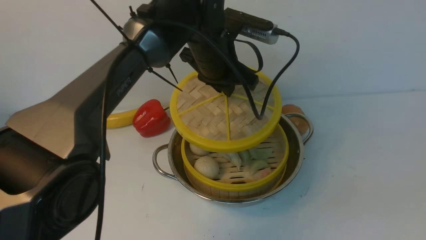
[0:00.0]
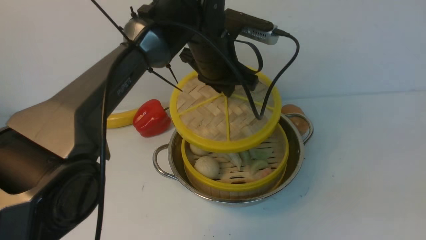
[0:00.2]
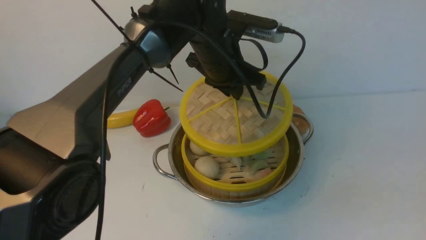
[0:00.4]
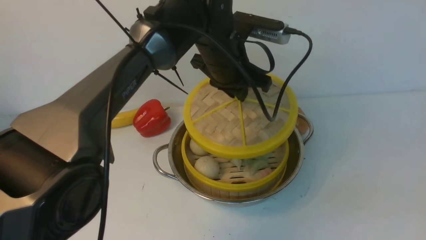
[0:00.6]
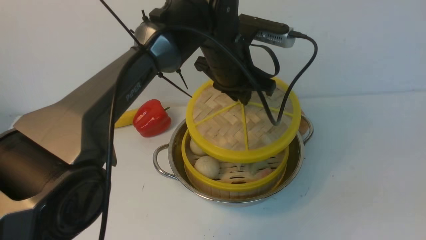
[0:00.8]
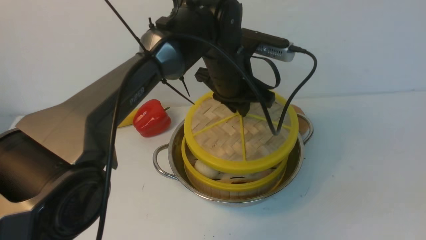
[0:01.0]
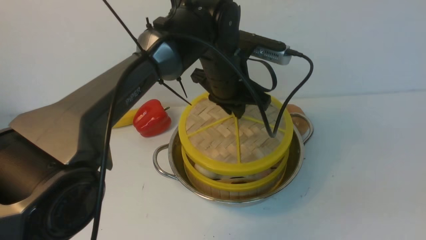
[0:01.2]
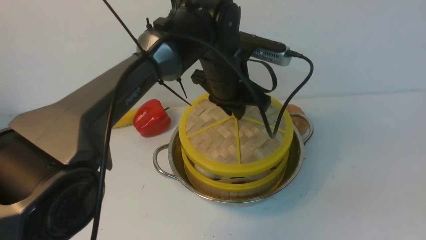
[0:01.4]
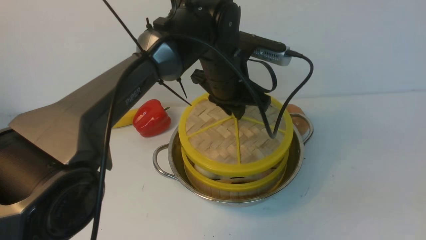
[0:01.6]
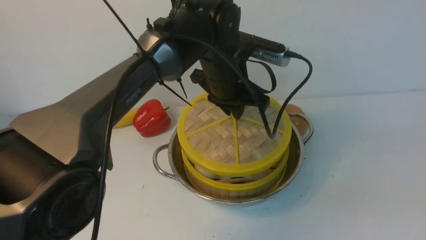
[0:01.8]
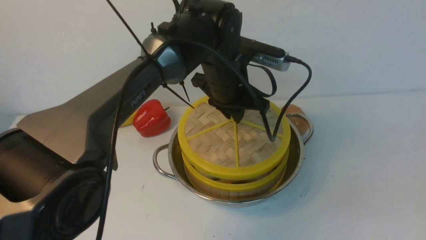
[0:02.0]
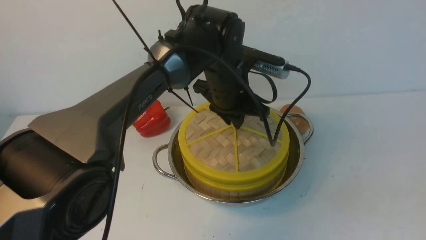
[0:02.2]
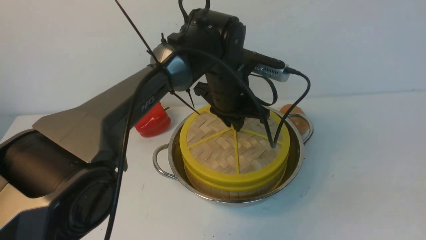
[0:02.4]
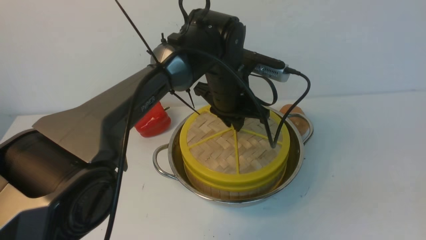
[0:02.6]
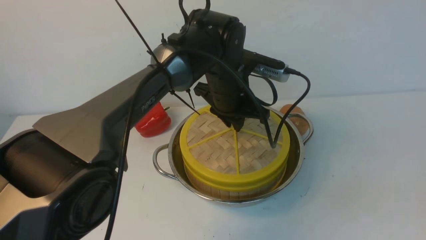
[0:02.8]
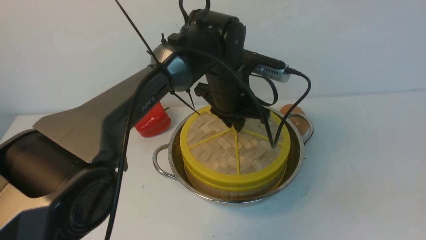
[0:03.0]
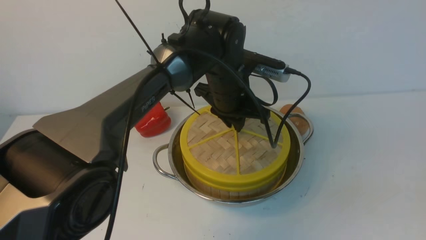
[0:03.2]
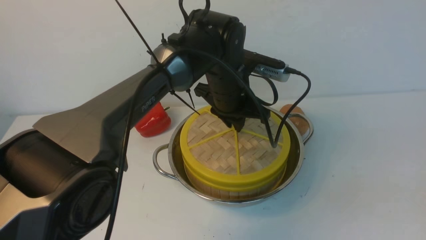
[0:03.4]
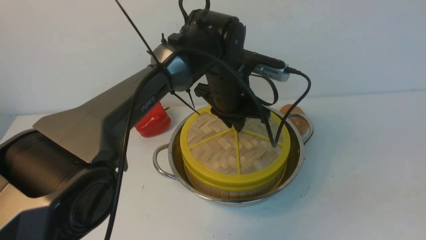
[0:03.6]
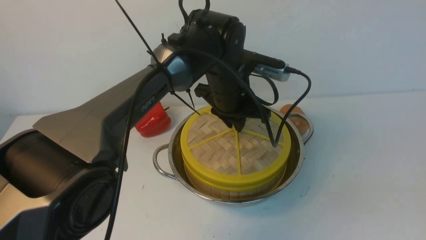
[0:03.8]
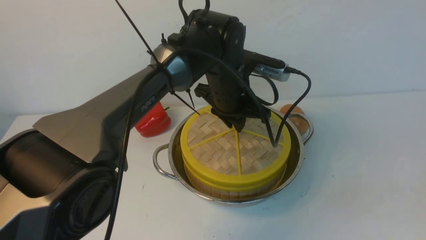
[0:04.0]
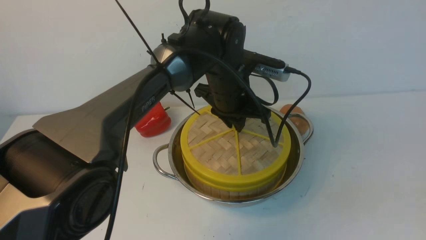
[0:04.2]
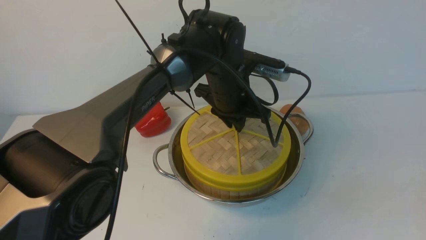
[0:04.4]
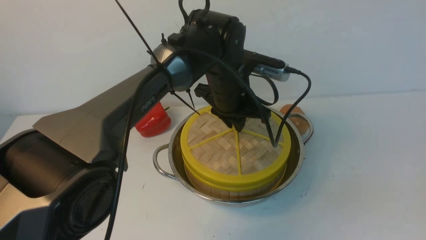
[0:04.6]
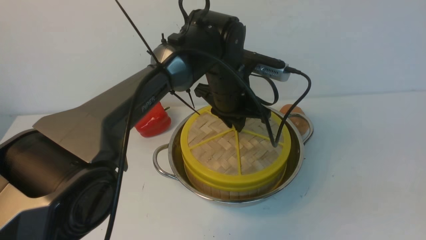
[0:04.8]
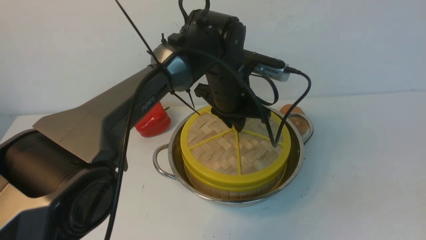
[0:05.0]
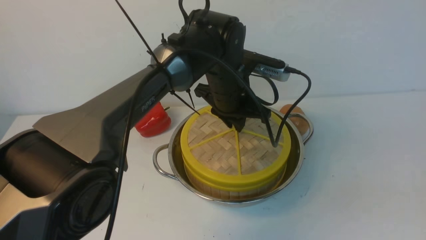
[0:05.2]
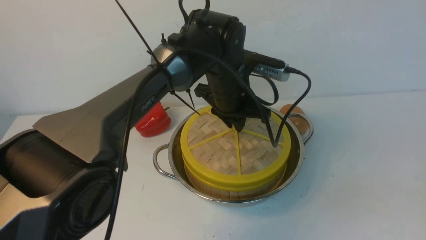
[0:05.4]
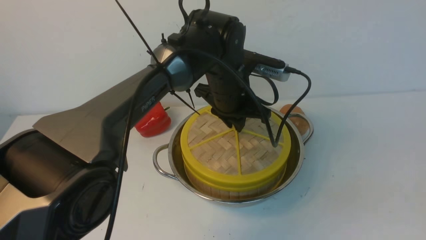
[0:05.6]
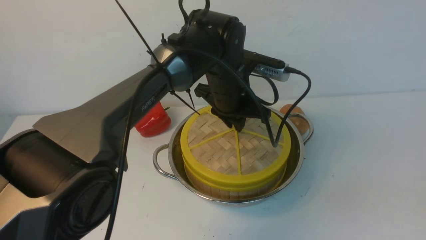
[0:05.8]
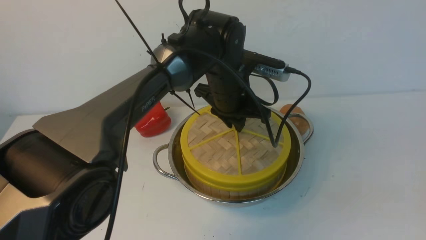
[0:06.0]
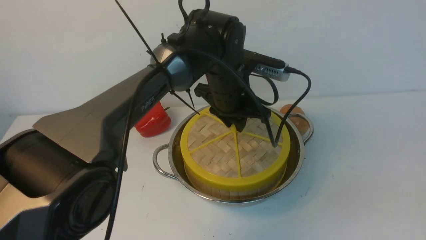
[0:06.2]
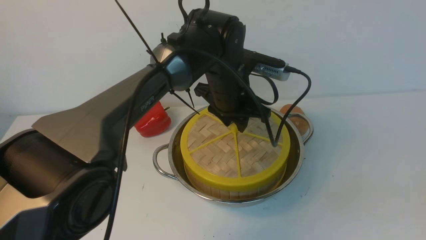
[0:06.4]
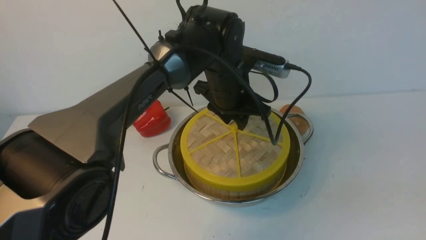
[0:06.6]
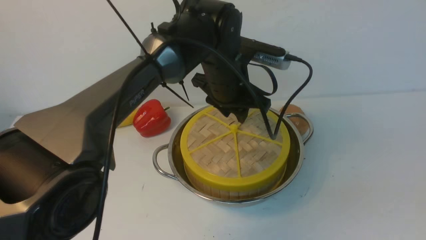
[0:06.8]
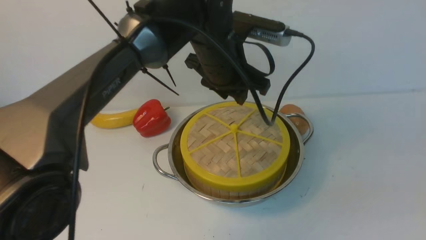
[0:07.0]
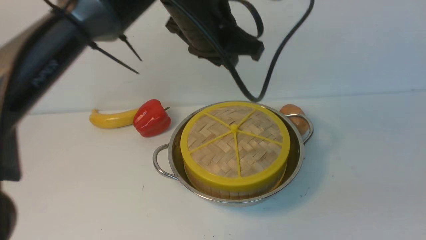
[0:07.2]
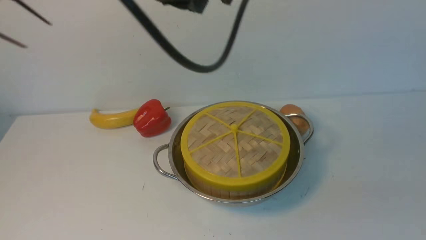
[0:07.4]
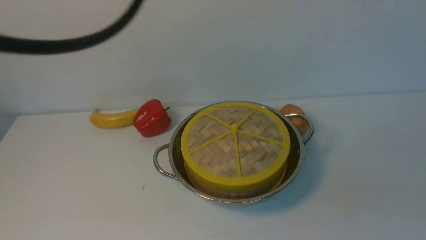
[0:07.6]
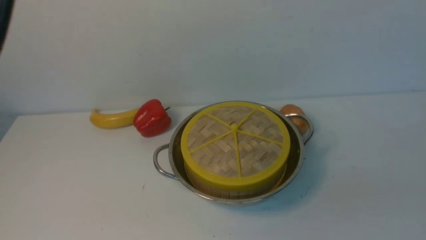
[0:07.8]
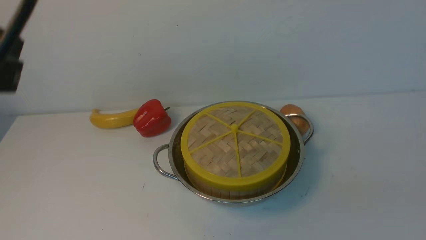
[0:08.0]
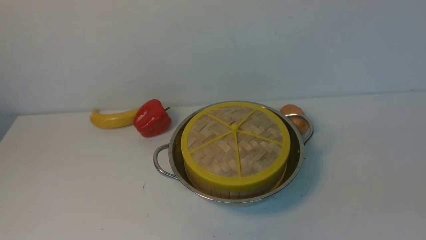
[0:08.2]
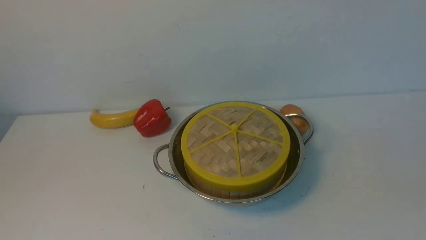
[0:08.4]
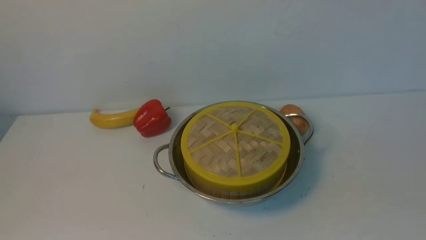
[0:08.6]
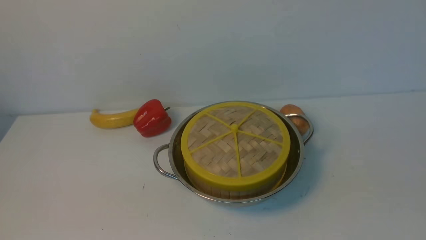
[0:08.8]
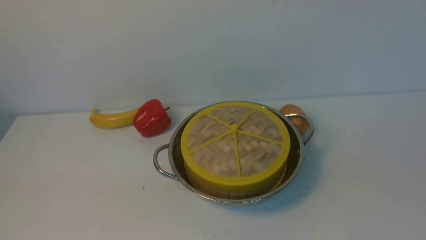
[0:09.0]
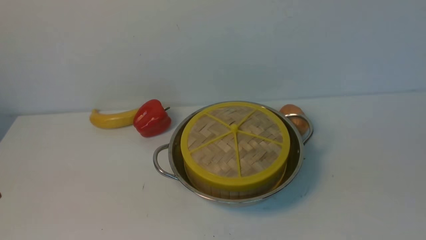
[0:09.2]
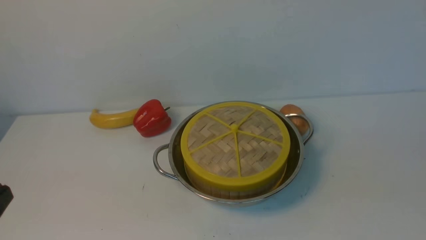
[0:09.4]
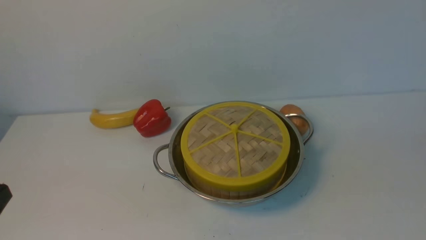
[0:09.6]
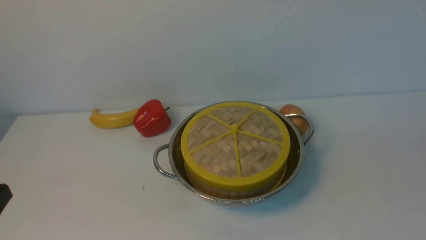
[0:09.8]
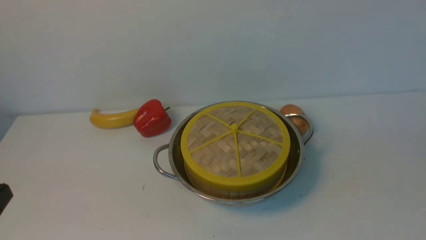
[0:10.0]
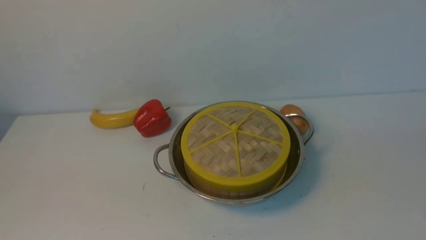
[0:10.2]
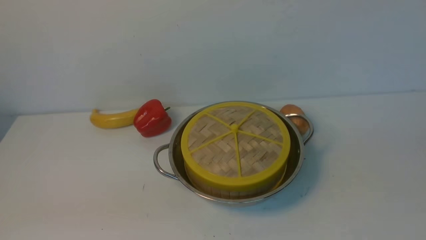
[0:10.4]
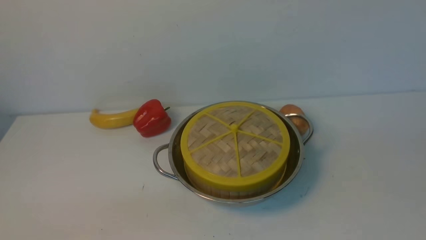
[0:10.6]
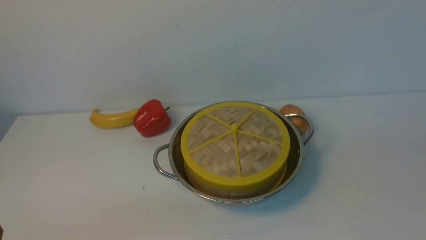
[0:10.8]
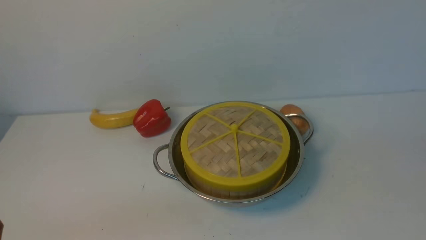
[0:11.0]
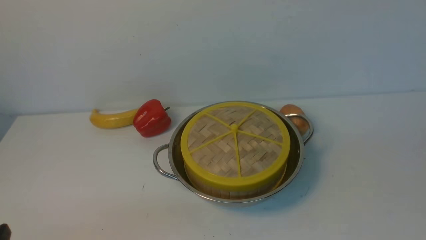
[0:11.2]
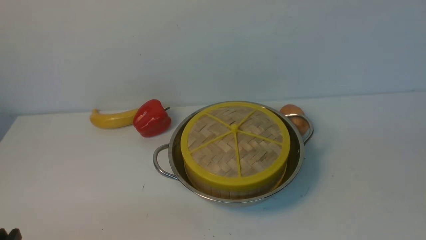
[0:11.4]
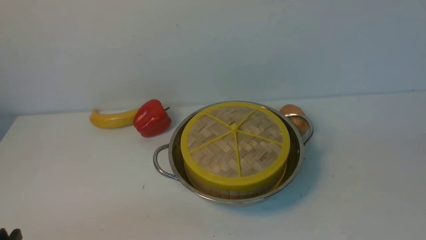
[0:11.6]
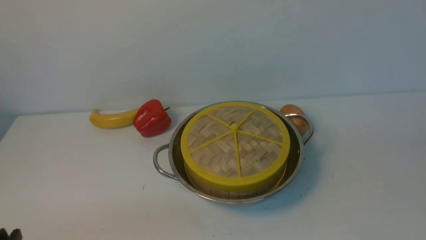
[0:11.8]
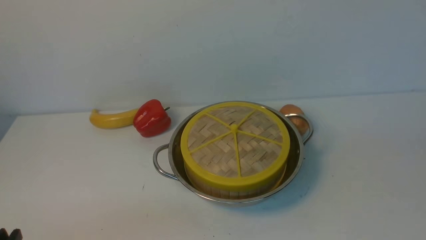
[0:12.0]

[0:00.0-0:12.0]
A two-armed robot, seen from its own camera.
Task of the whole recording: place the steamer in the pot on the white table, and put the lid on the steamer.
0:03.0 to 0:06.0: Neither gripper changes place.
0:06.0 to 0:07.6: The left gripper shifts some 35 cm upward, backward and to the left, and closes up.
0:07.6 to 0:09.0: The left gripper shifts about 35 cm downward, backward and to the left.

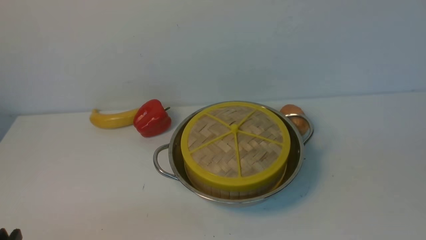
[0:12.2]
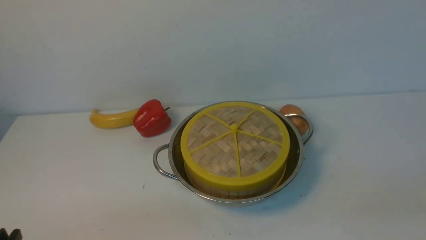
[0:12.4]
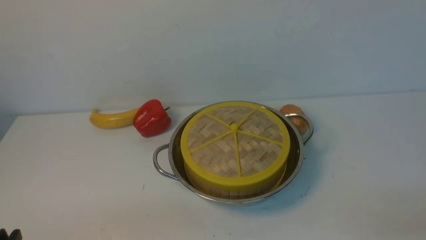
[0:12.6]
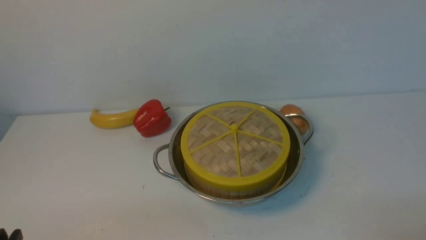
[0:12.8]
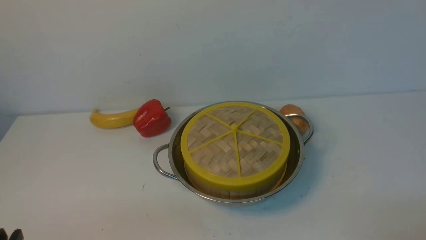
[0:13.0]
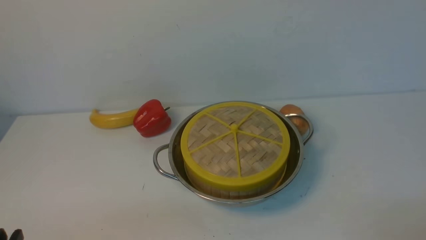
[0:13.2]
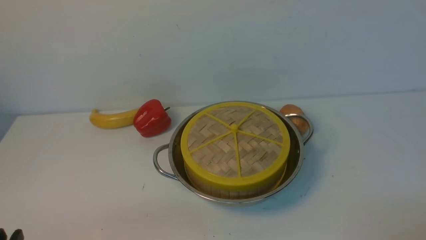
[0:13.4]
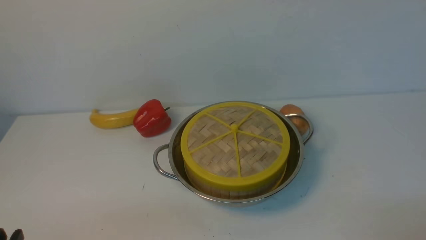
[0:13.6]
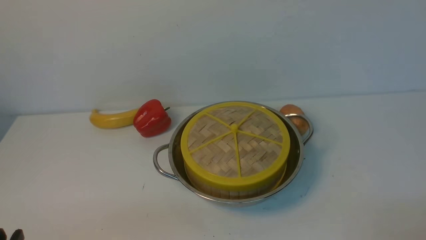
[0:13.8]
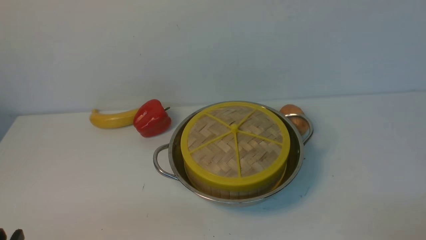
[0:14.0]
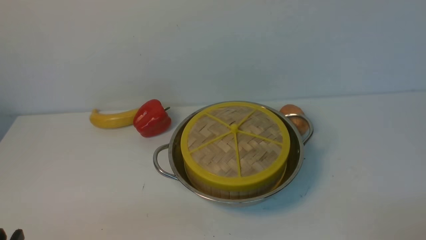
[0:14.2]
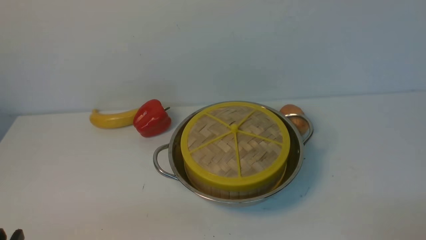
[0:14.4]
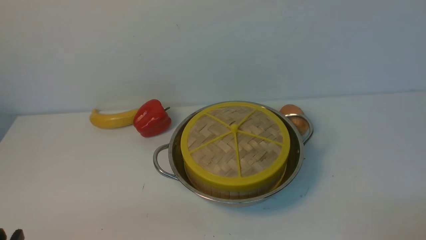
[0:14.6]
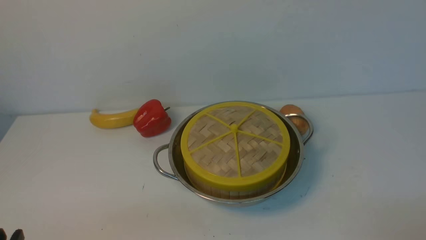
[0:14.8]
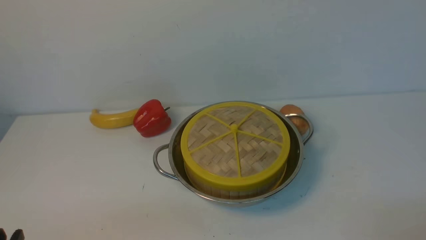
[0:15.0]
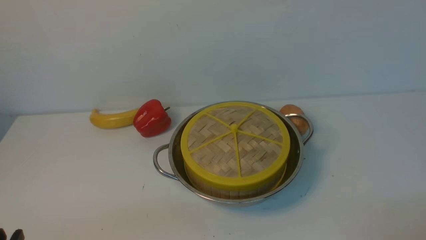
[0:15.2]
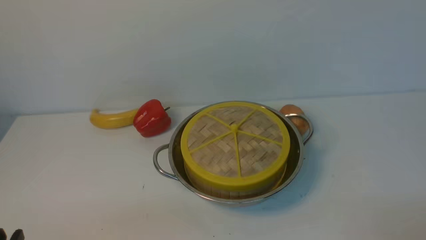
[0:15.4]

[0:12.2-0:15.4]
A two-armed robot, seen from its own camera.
Task of the whole recording: place the steamer in the pot on the white table, and put the lid on the steamer.
0:13.8 to 0:15.4: Both grippers stay about where they are.

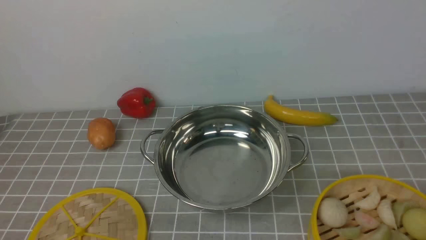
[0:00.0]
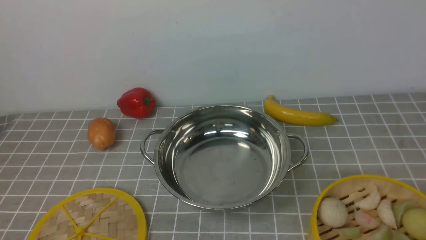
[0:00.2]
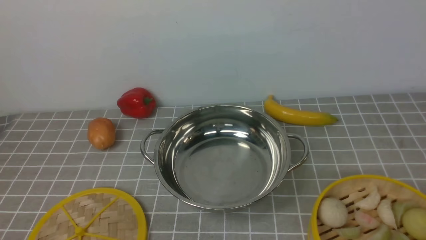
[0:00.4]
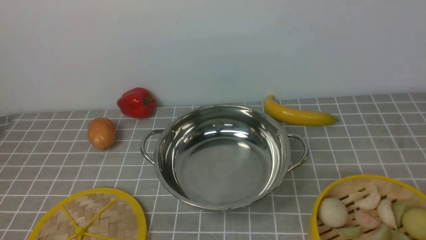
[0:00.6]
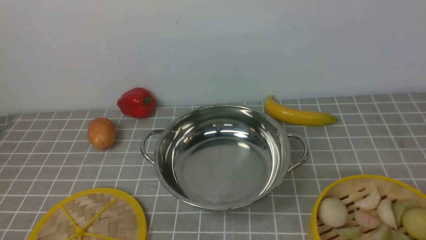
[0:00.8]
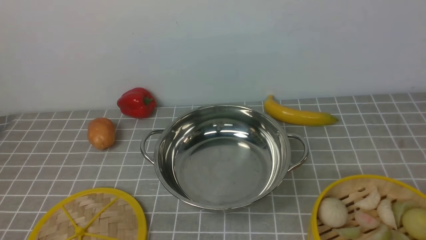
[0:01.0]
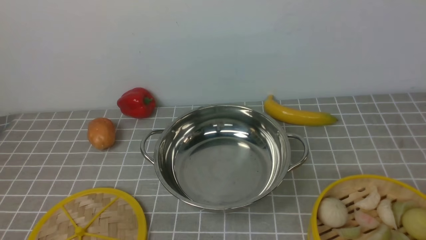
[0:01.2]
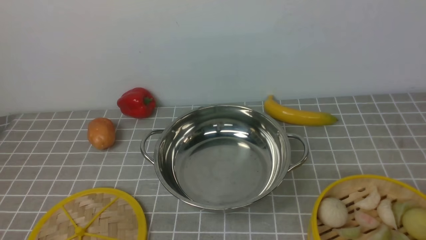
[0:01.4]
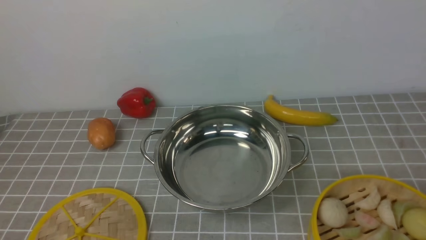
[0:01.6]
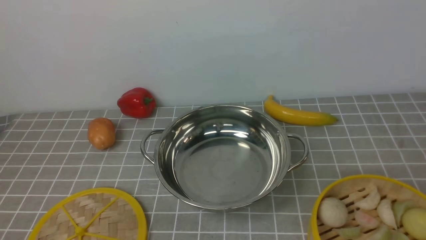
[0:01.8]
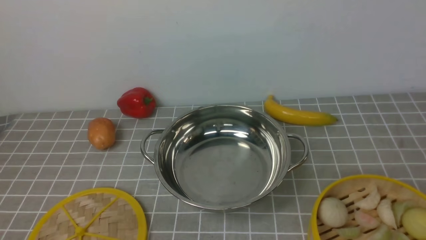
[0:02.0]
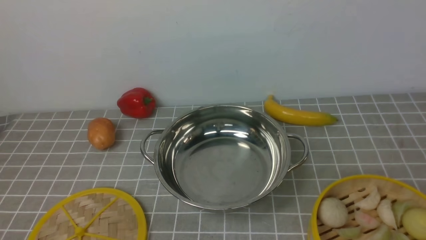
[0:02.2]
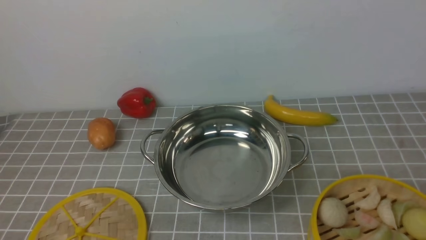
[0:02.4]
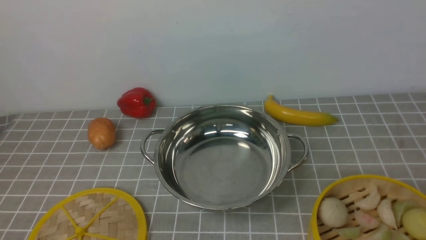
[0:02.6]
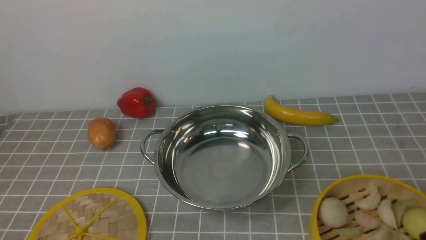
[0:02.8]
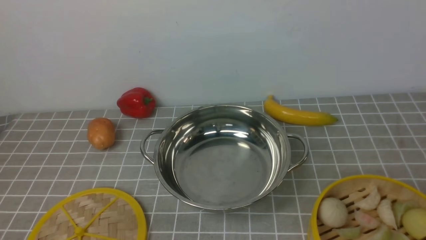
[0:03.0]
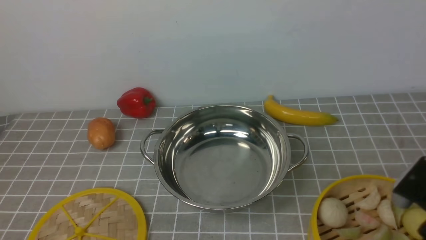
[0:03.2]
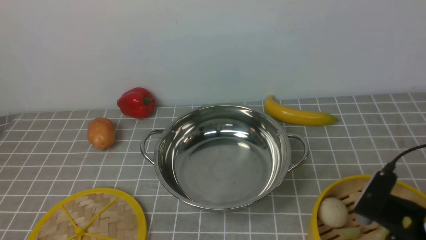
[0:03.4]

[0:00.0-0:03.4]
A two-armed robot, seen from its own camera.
Task of the whole recording: place the steamer in the pot on the grey tablecloth, and put the lid on the steamer.
0:01.6 to 0:03.4: The right gripper goes some 15 cm forward and to the left.
